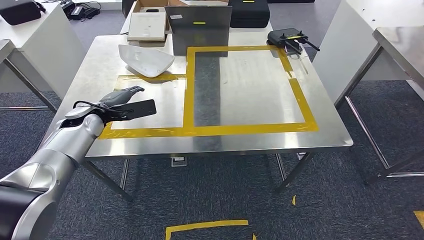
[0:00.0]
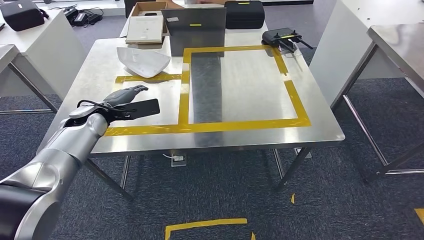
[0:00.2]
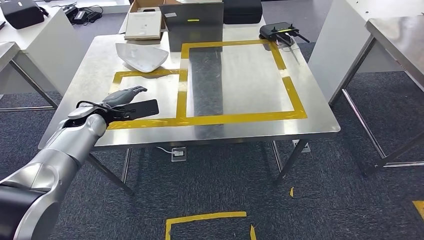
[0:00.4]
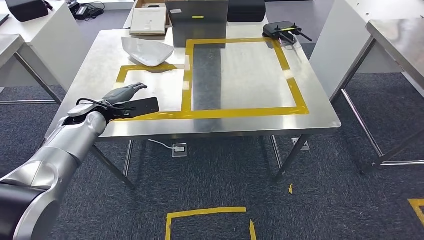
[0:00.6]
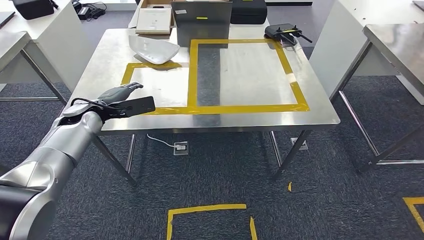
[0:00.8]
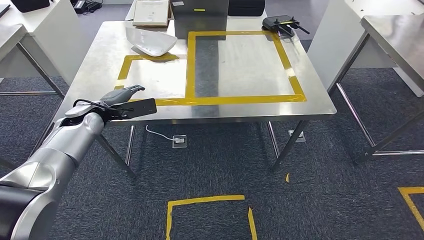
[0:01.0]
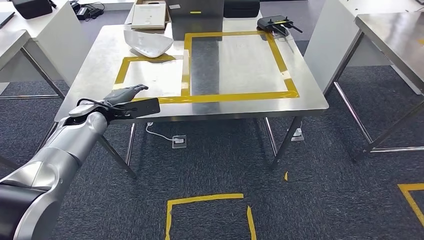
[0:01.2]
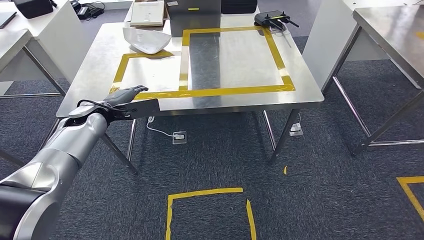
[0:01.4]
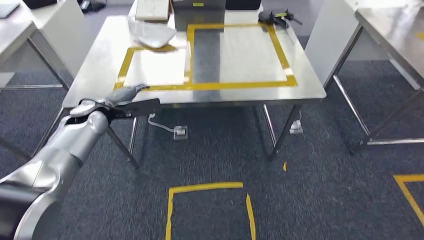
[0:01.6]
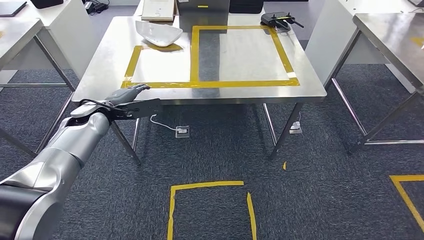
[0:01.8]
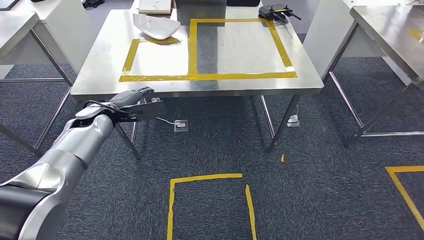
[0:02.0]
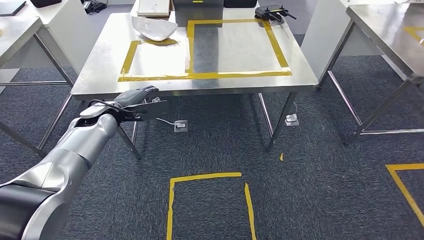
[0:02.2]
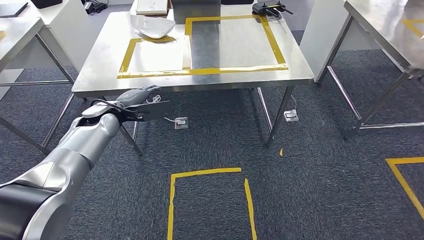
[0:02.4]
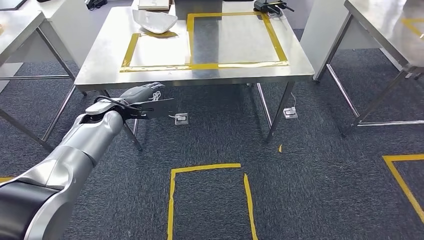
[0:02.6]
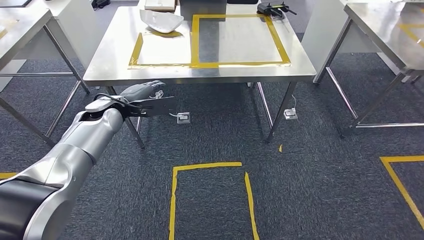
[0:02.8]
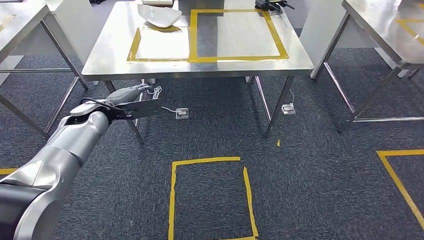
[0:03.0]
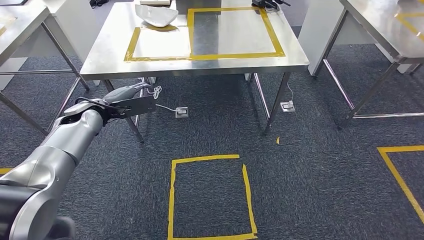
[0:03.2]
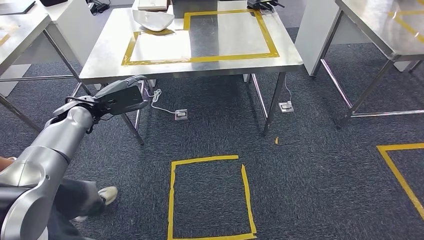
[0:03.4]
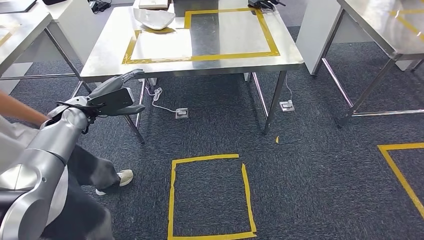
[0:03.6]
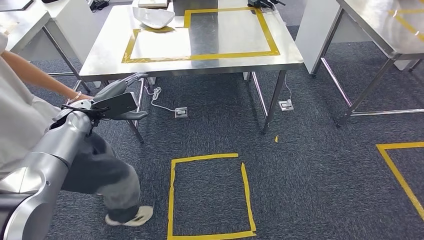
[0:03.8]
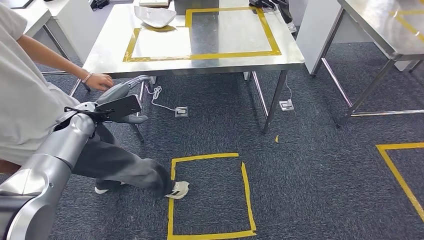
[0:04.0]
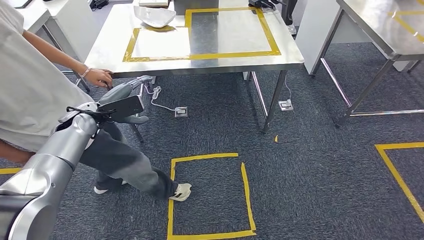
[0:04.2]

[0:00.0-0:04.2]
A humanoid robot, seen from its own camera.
Step, 0:00.0 to 0:04.2: Move to the initial position of the workbench.

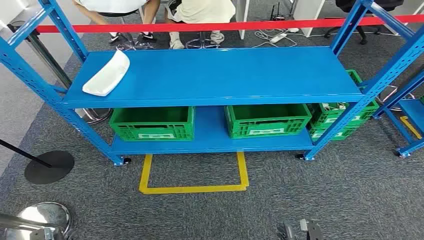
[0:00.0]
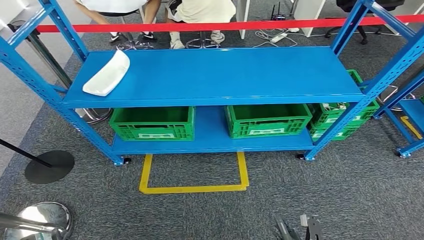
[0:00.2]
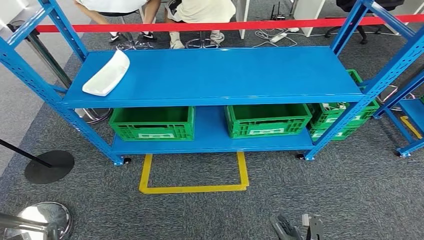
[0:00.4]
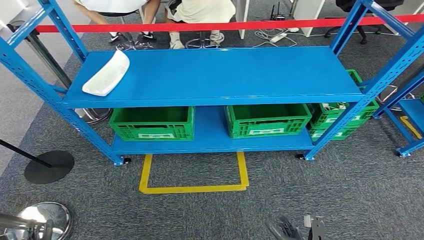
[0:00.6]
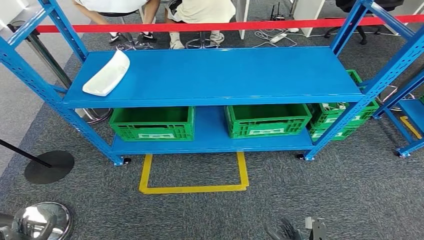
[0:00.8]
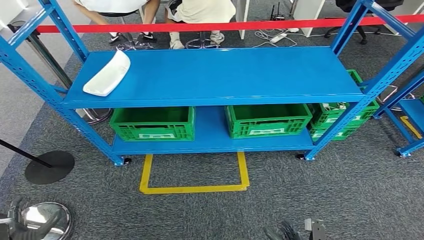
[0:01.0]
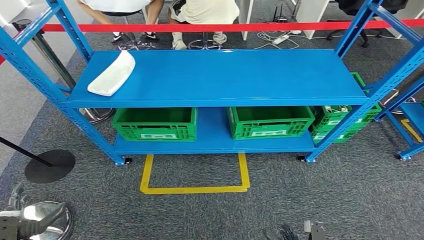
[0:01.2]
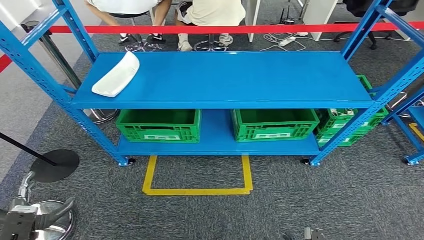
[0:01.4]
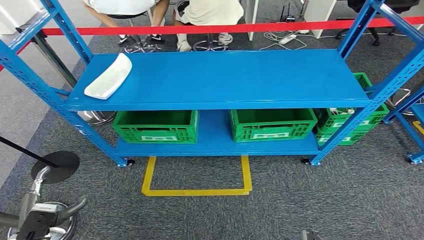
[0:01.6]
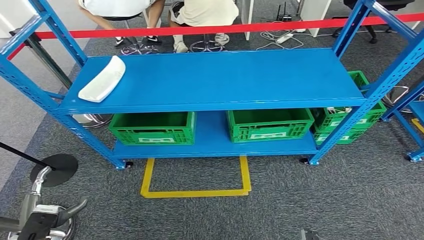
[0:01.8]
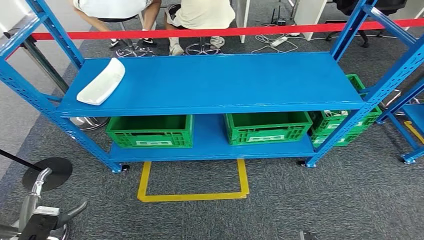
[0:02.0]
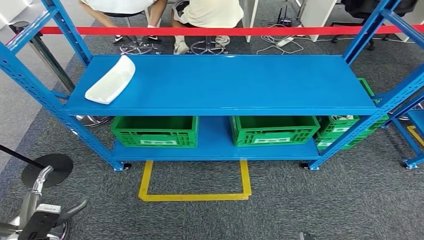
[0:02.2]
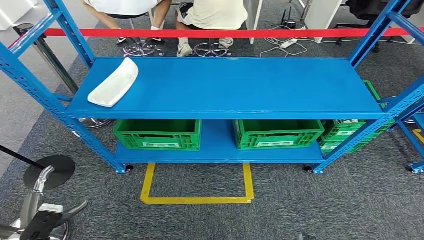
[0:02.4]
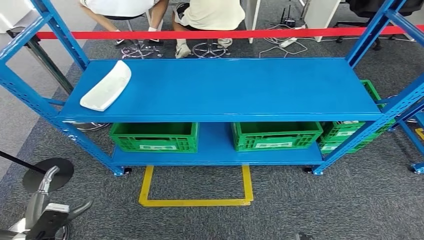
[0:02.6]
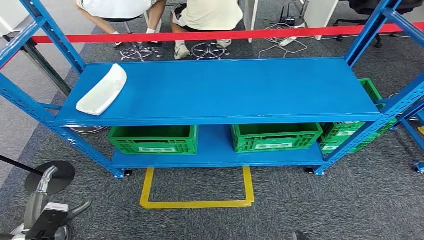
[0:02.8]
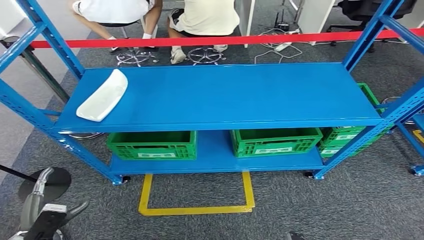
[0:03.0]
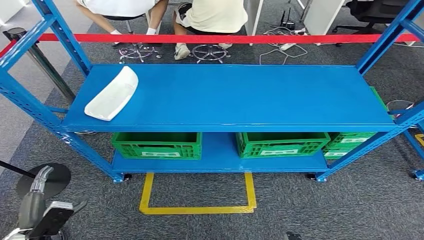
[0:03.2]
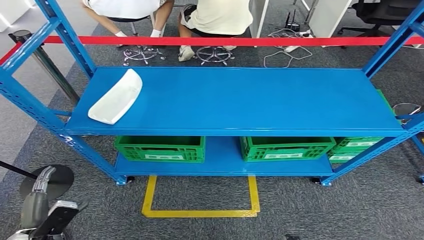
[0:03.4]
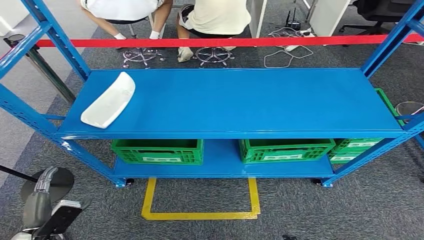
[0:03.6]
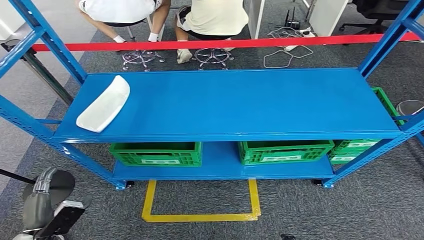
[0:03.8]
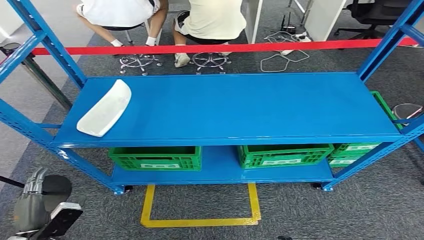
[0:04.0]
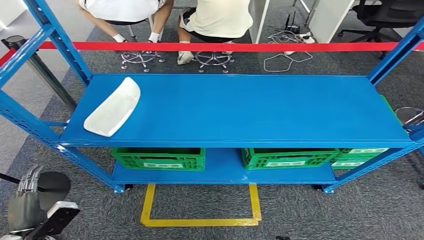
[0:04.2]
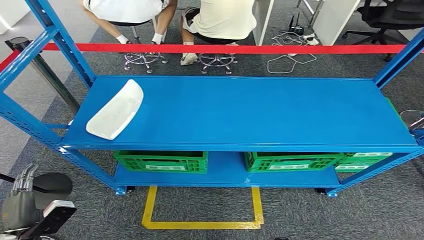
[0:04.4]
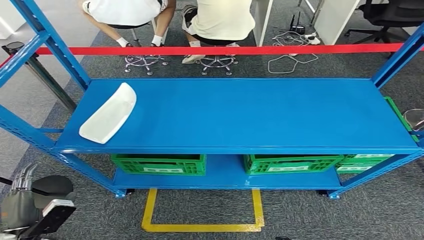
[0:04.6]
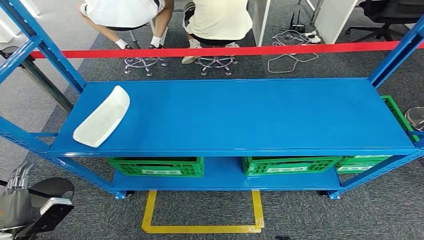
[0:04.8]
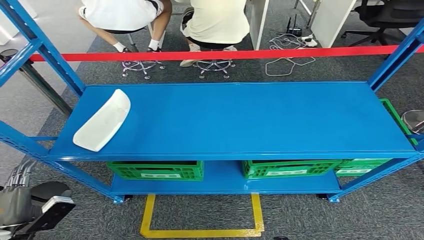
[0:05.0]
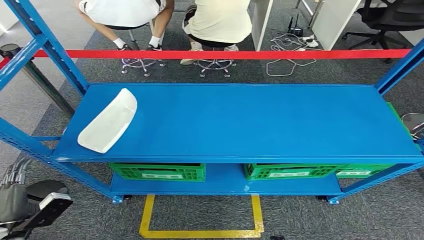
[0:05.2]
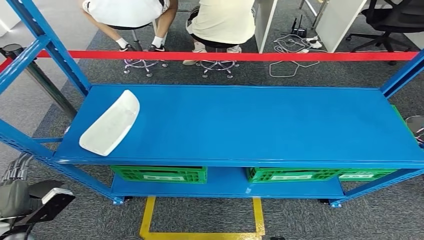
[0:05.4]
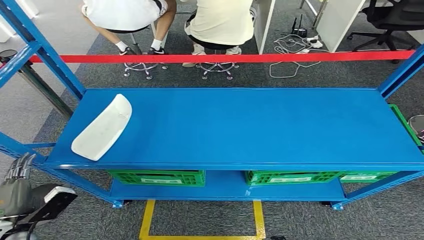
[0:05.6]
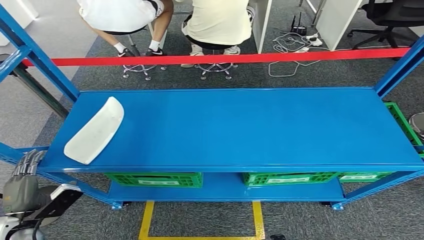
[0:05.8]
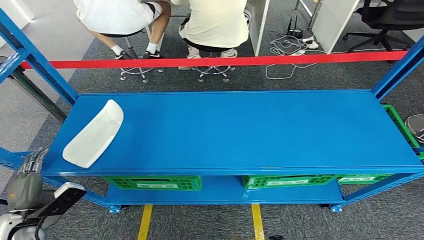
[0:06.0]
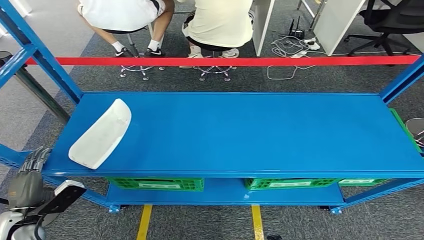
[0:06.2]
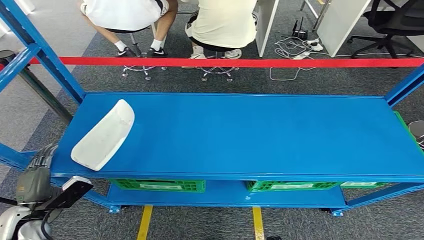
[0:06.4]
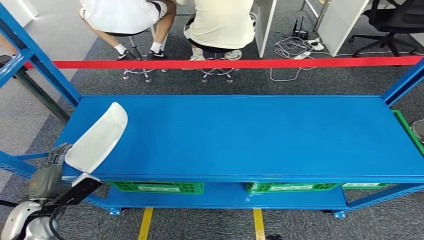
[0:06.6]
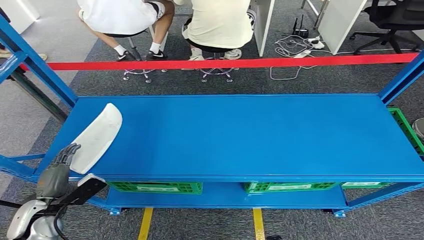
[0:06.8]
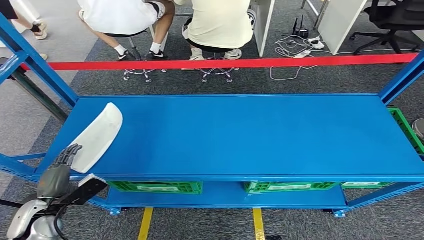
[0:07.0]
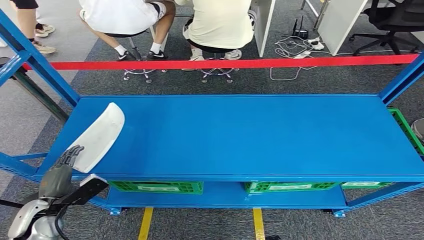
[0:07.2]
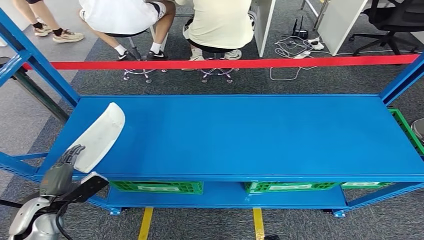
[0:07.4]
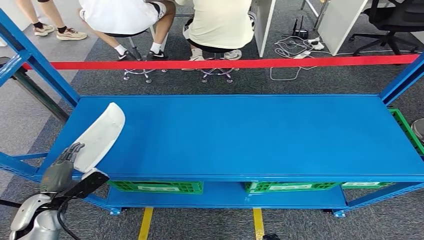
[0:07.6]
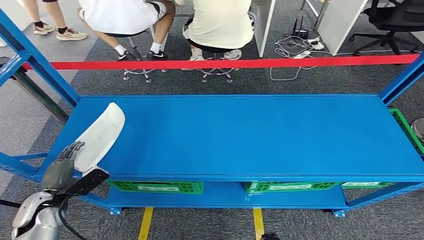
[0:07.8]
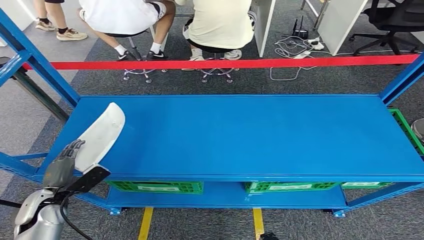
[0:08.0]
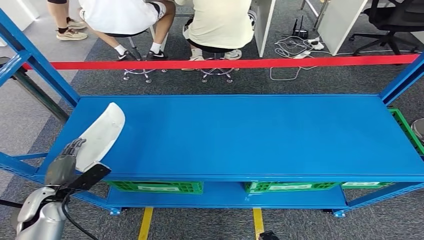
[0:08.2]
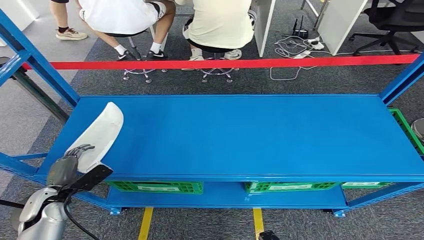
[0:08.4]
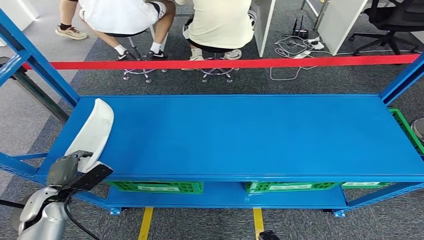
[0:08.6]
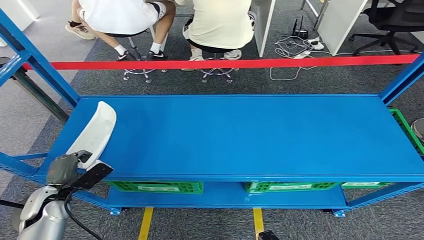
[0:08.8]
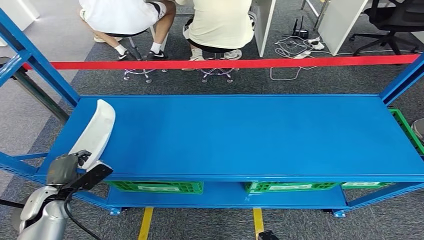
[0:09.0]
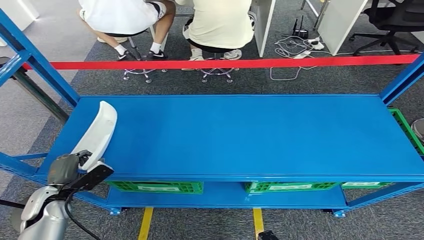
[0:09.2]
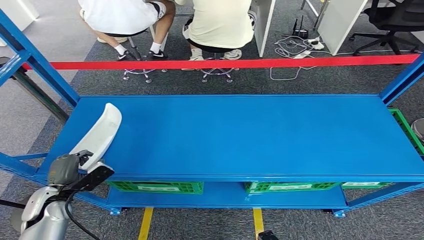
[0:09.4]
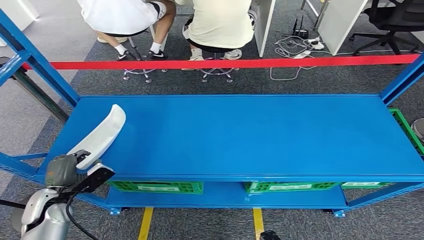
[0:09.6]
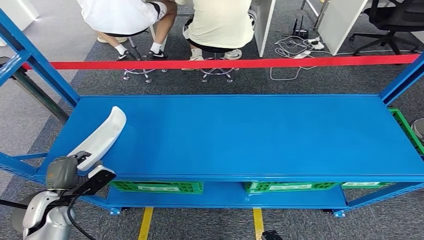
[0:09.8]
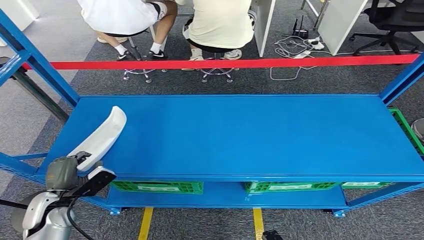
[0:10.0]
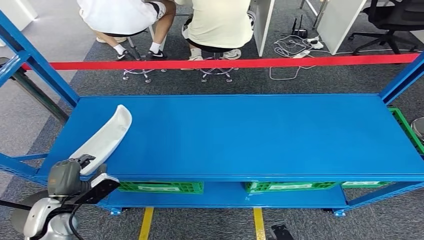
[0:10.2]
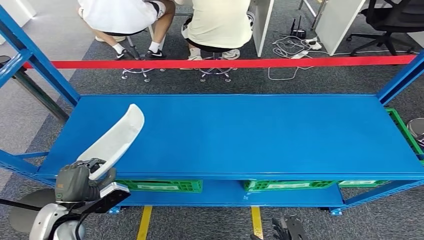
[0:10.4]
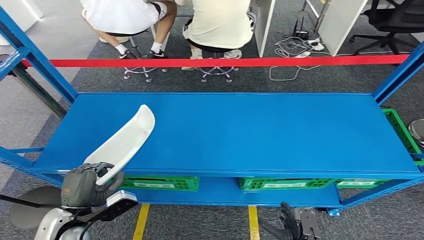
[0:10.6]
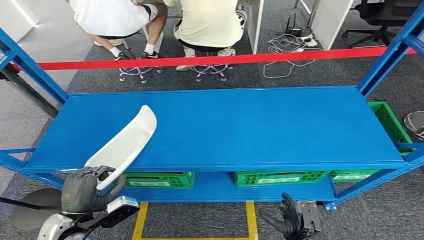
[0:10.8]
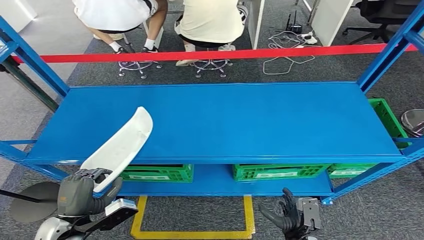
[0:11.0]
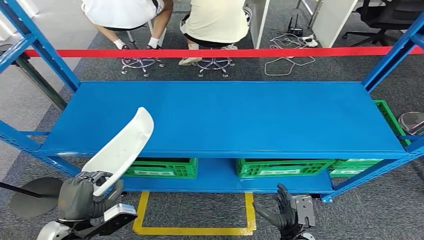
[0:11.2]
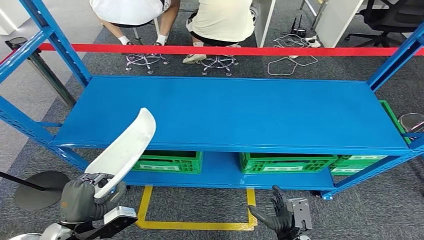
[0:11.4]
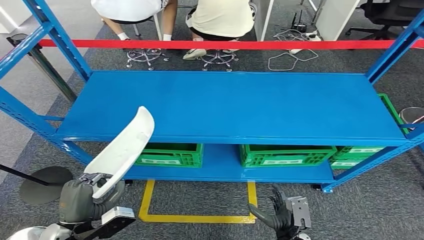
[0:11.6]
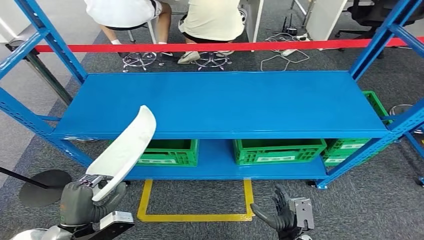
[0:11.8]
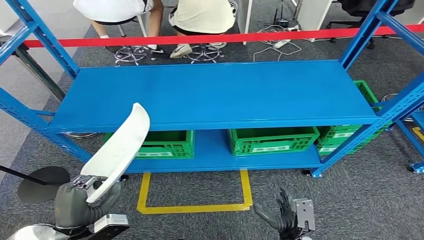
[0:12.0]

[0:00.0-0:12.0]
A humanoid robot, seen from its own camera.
0:07.6 to 0:09.0: The hands make only small movements.
0:09.0 to 0:10.4: The left hand moves to the right and backward, about 10 cm.

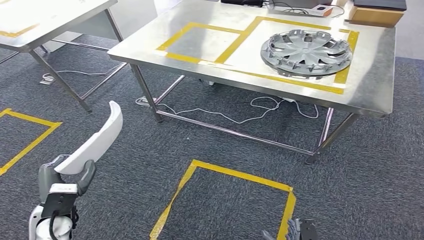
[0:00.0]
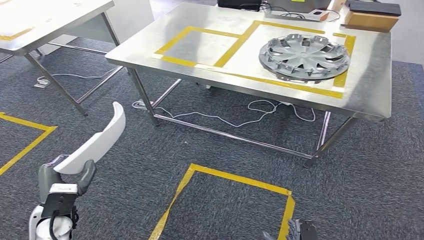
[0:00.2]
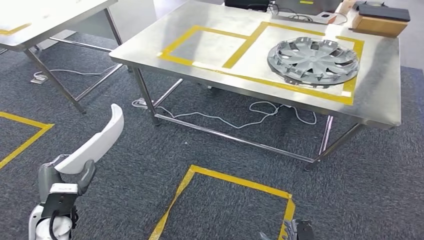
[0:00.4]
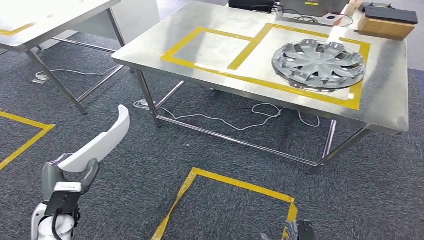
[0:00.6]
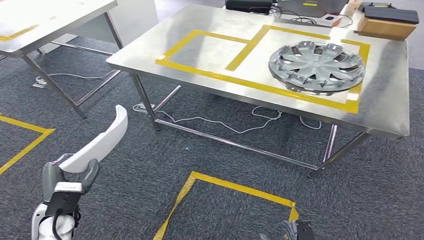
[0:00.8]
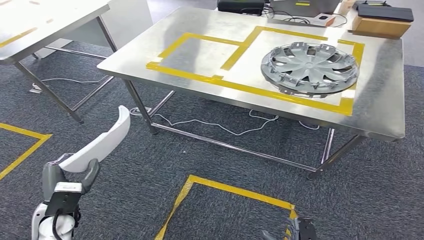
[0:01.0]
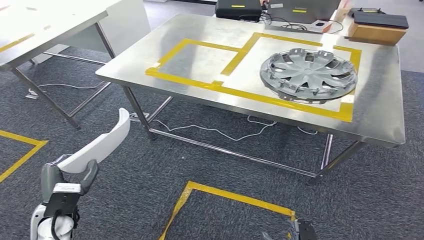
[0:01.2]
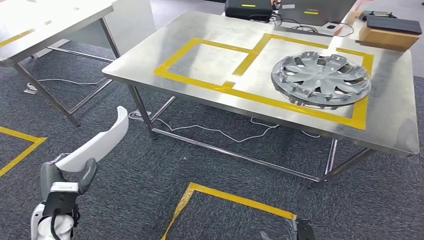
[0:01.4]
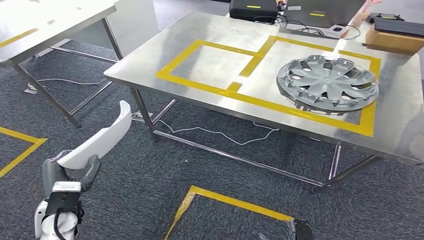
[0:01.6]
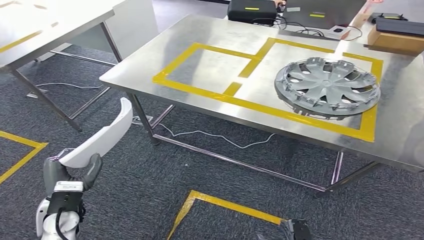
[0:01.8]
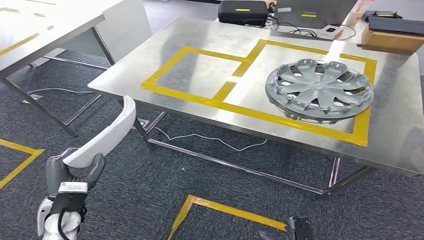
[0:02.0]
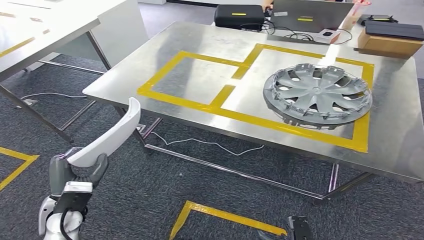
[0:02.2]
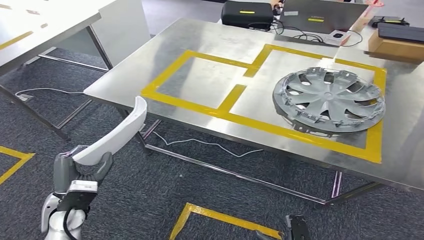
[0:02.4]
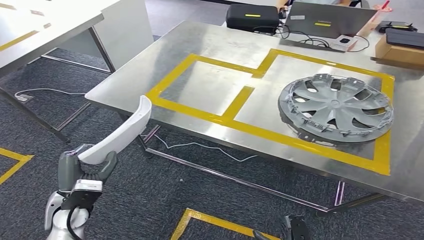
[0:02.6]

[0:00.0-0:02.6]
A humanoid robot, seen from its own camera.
Step, 0:00.0 to 0:02.4: Move the small parts to the workbench.
